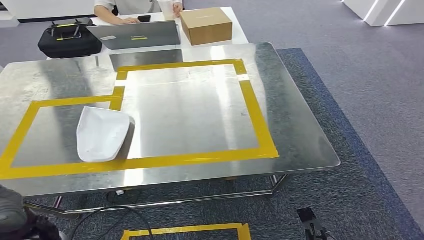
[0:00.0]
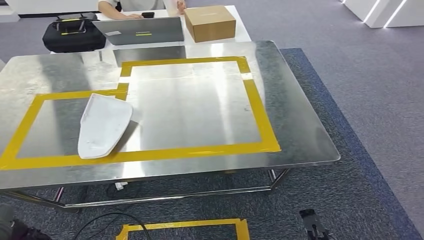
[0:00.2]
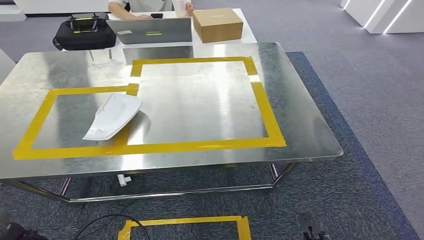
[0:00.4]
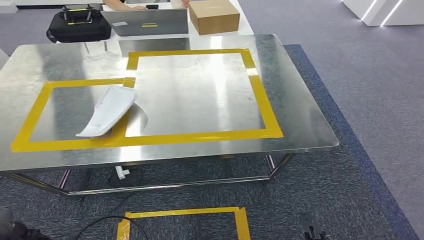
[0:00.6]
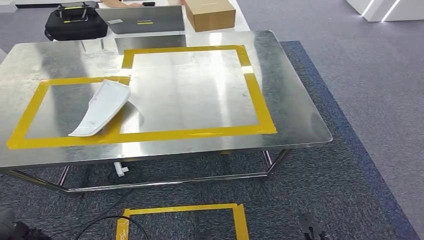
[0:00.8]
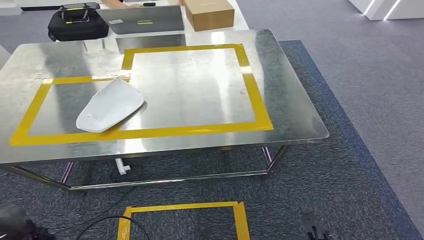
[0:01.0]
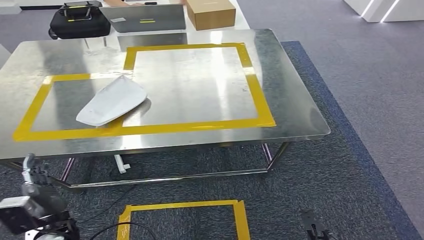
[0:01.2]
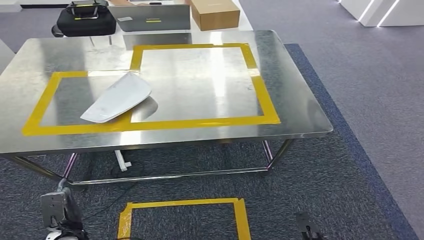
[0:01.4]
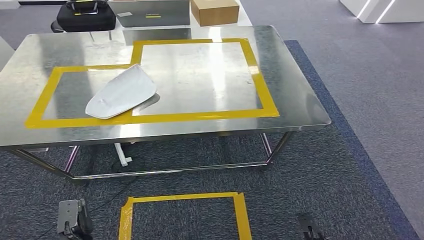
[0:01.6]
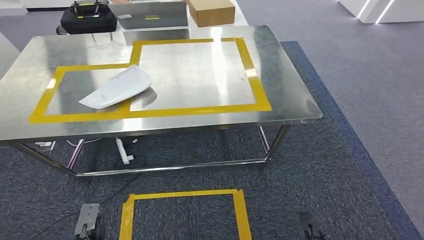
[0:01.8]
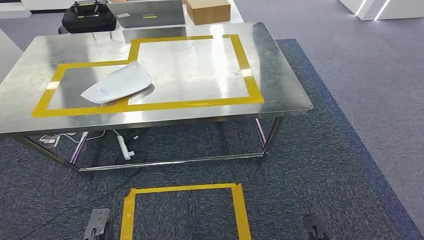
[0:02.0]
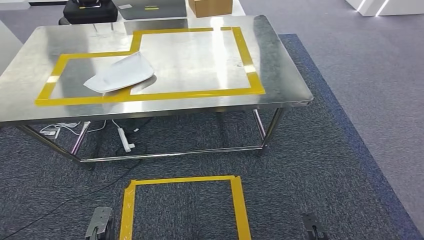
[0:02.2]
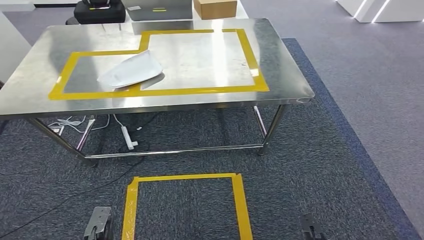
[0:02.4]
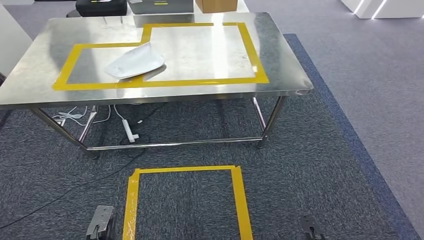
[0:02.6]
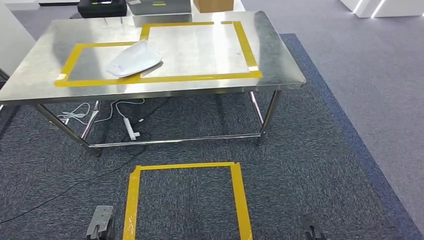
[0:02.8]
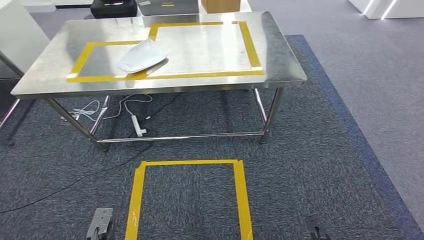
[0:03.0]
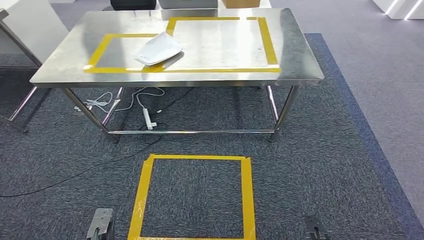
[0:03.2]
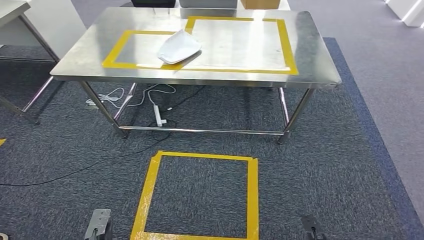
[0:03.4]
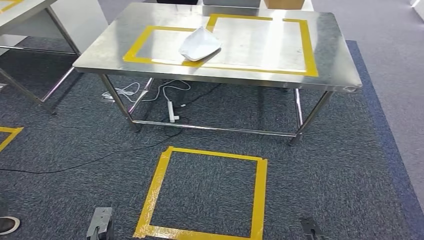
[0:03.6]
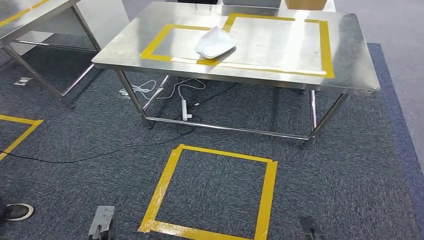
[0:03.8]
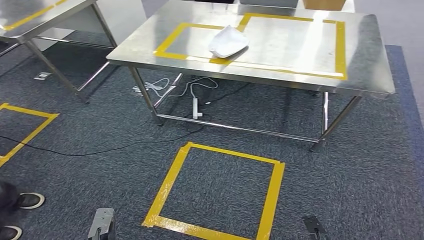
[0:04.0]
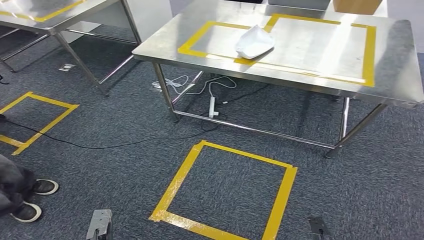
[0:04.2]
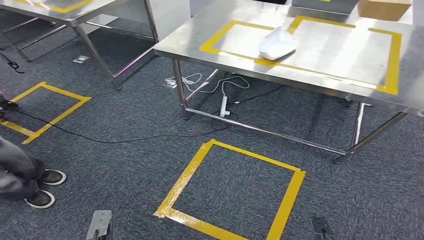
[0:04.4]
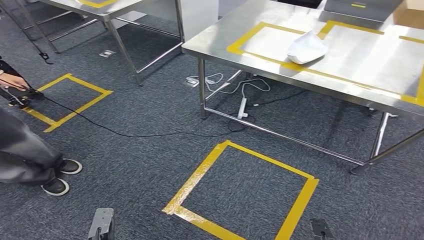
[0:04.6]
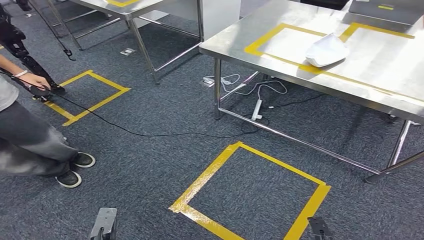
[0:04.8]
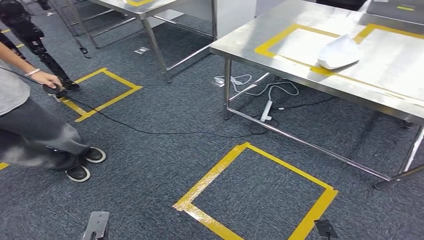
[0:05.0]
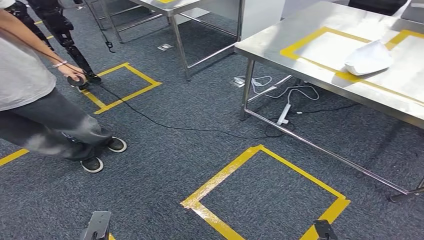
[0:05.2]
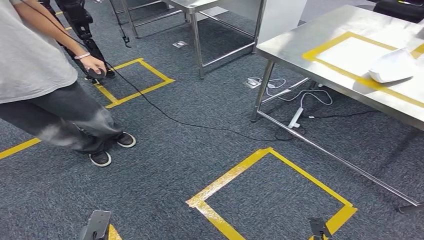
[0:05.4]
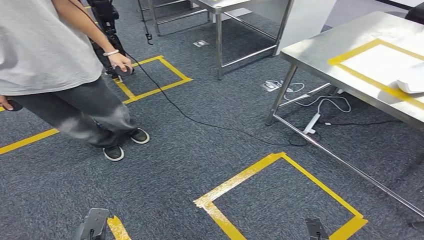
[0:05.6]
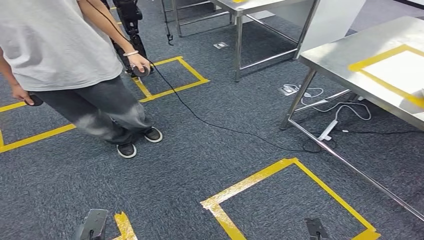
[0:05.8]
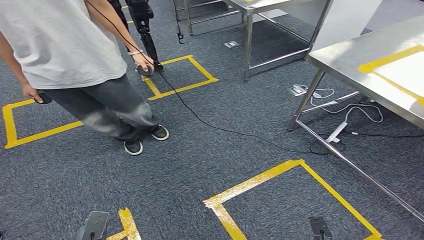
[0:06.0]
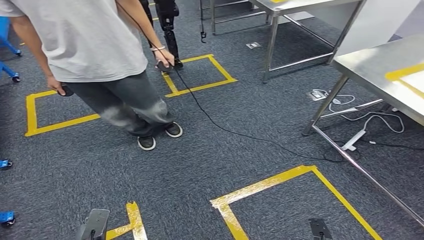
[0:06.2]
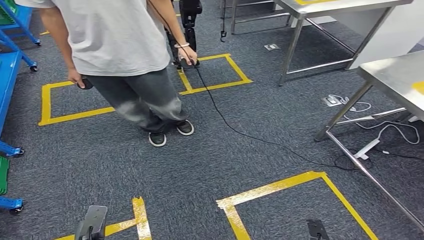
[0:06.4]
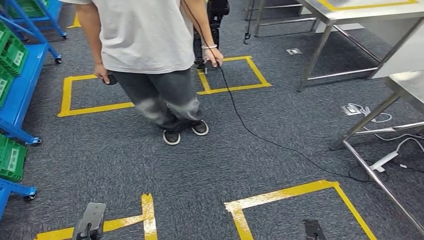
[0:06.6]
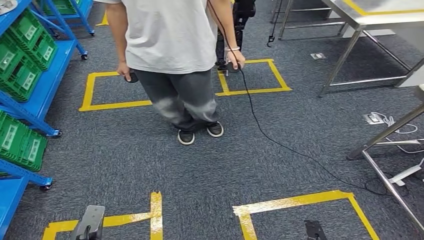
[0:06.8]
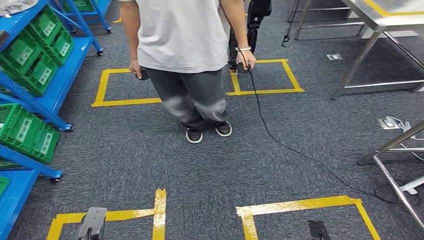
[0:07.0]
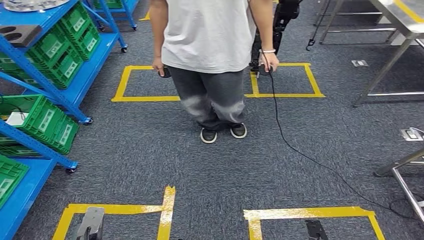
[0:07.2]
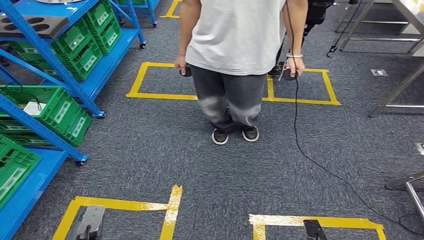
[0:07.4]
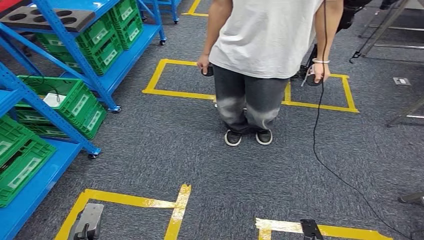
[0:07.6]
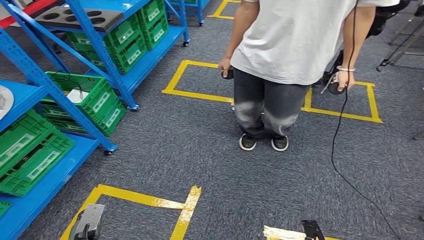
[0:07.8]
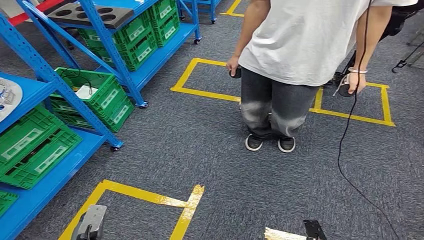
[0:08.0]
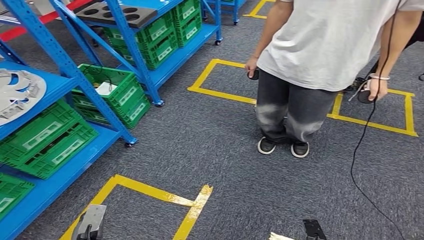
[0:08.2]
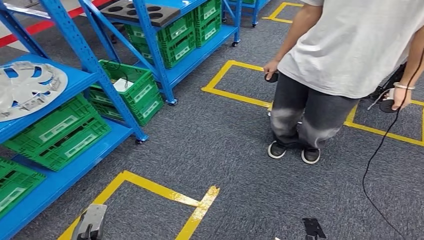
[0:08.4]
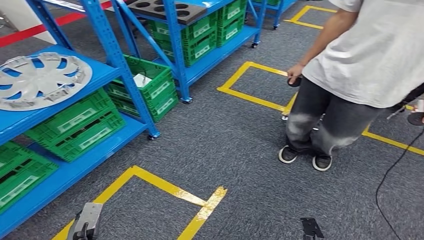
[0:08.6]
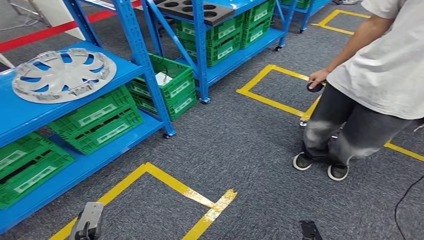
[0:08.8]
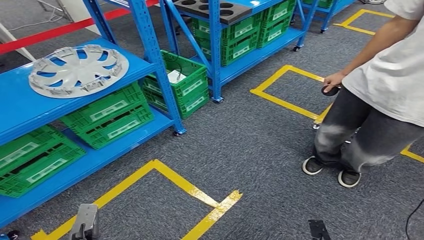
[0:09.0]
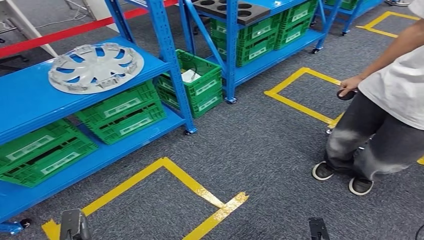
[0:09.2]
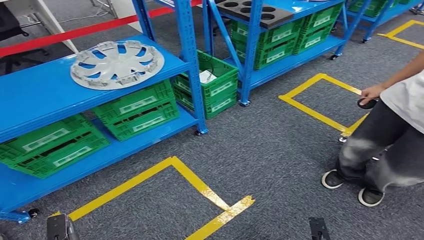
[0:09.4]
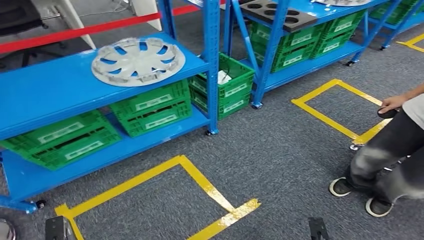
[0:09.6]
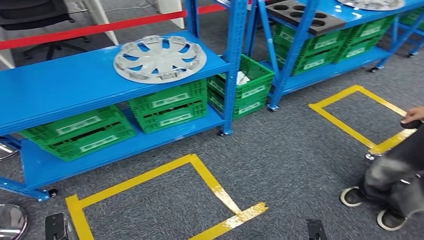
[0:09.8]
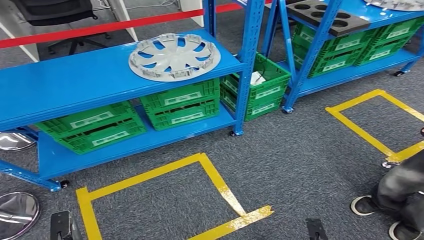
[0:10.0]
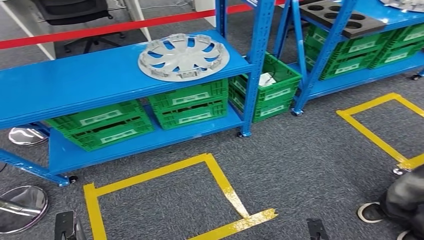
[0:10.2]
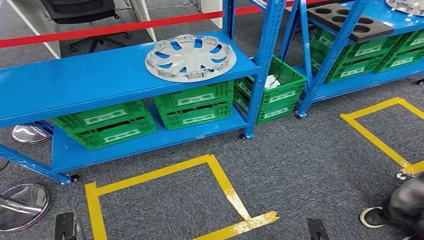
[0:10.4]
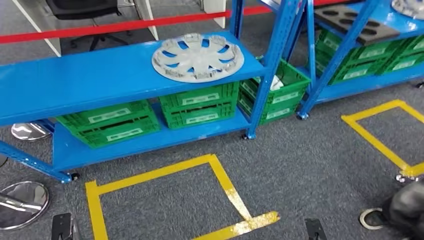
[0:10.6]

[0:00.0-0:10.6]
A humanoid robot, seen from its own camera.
Step, 0:01.4 to 0:10.4: Return to the initial position at the workbench.
